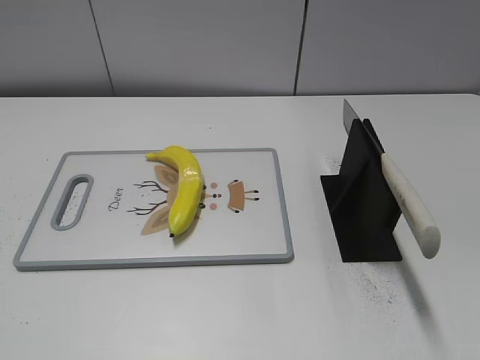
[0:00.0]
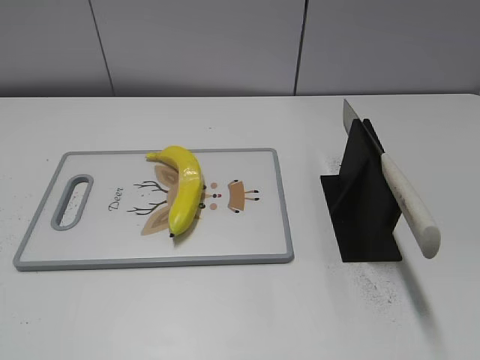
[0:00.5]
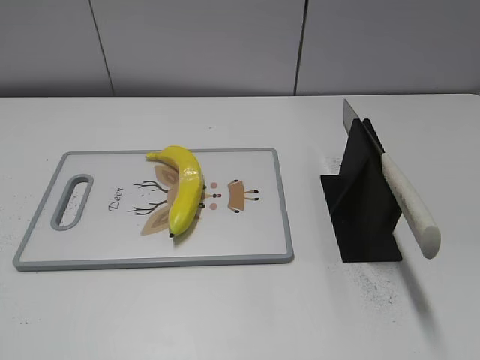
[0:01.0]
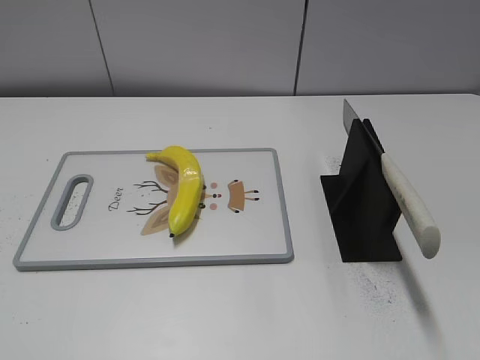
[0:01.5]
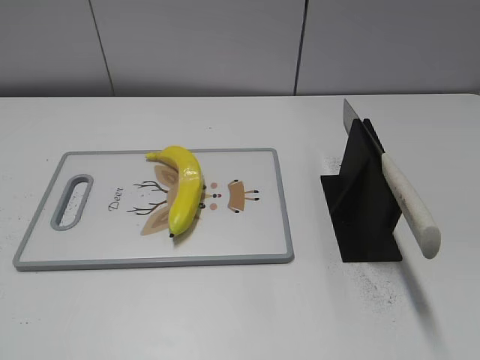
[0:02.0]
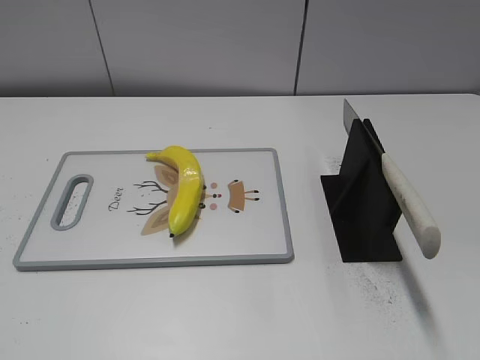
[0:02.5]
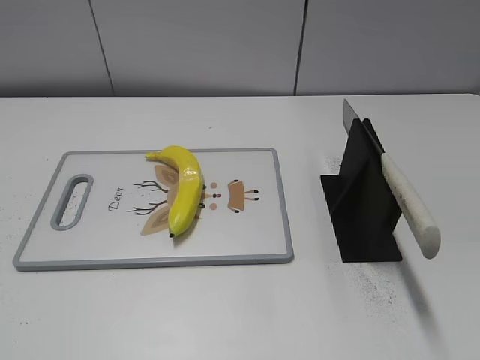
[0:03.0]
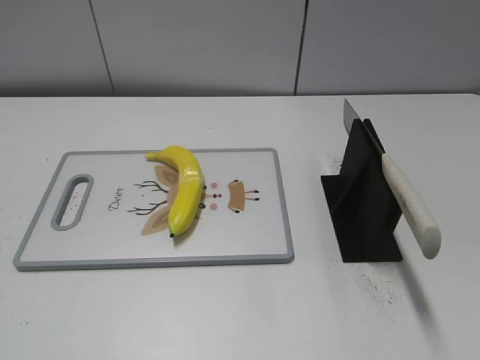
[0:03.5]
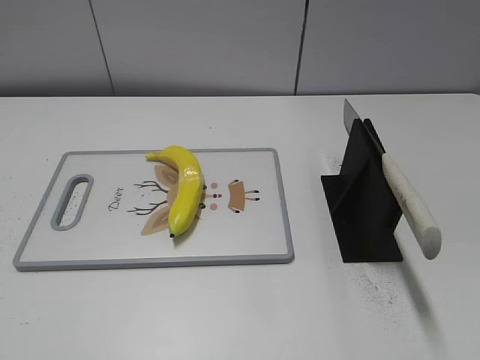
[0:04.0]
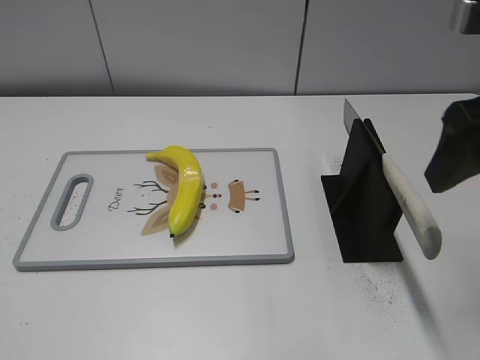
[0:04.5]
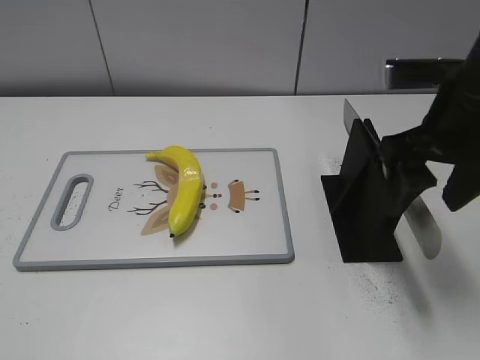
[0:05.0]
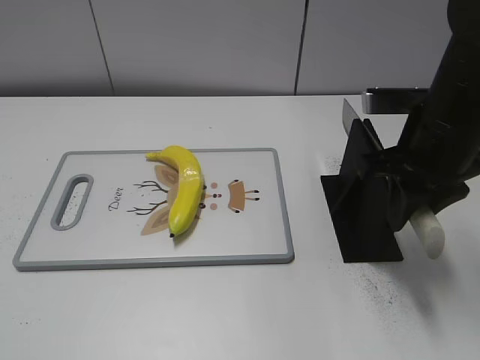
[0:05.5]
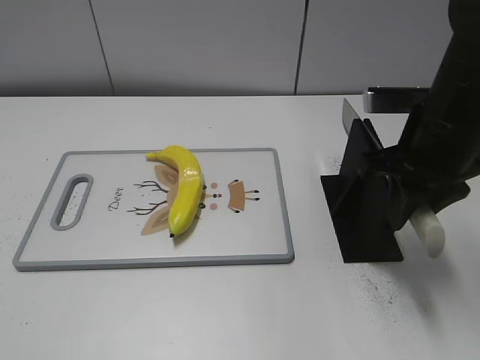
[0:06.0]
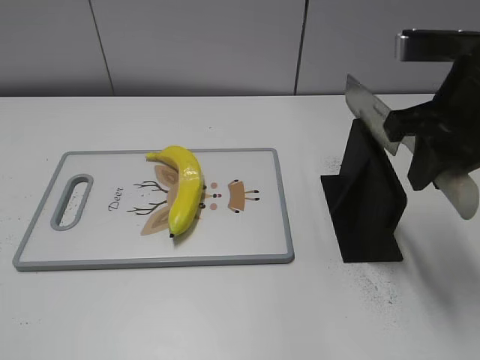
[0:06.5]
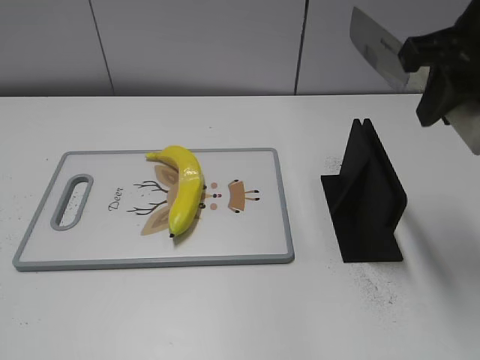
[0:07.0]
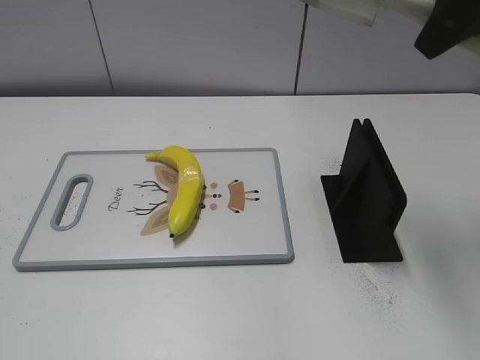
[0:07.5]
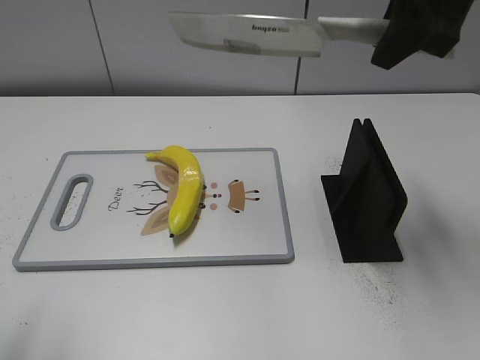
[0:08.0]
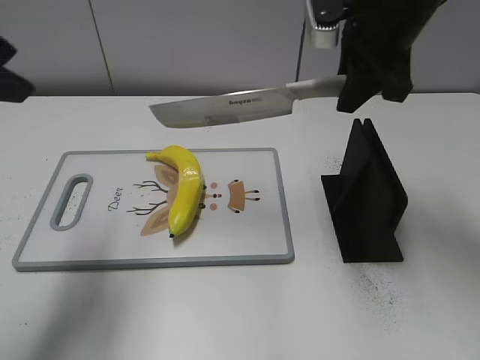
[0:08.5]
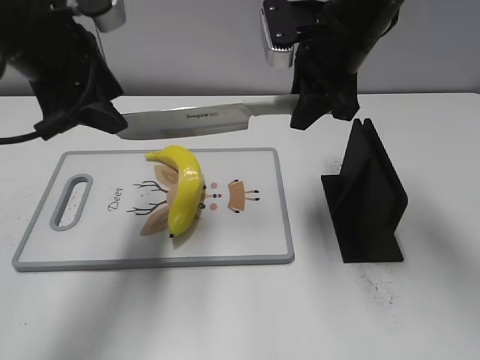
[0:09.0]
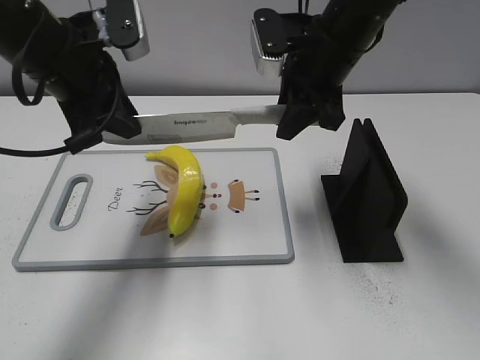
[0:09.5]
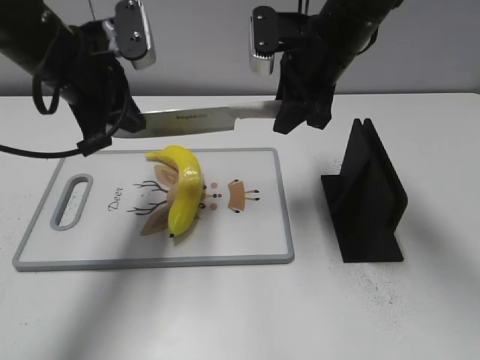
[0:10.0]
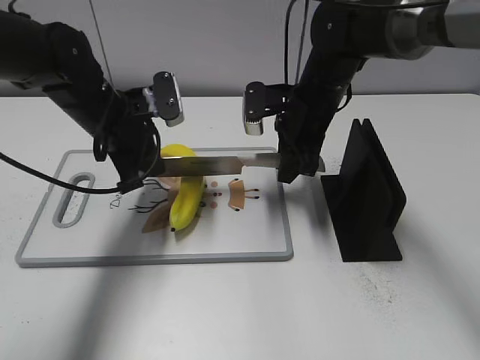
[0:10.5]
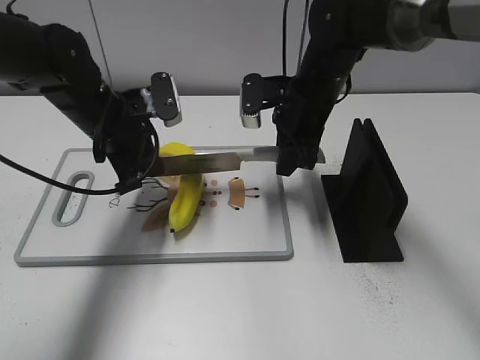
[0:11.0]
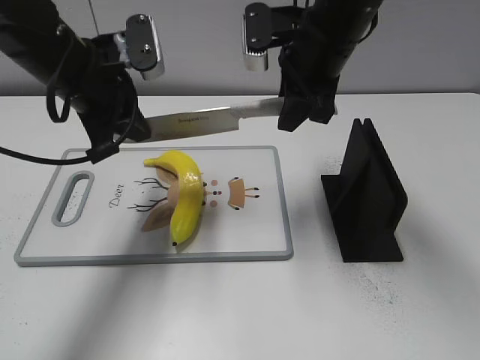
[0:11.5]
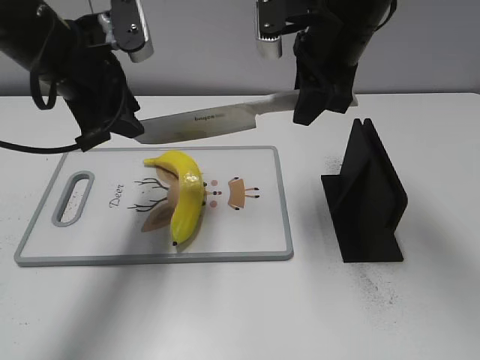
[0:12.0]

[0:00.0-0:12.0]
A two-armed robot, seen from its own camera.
Task of the whole recording: cut plastic banana.
Step, 0:00.0 to 0:07.0: Grab the knife handle with your right hand.
Step, 0:07.5 to 0:11.5: Lift the knife with your right hand.
0:04.0 to 0:06.0: The right gripper heads forward, downward and to the left, covering approximately 20 cm, and closes.
0:06.0 to 0:08.0: The left gripper goes about 10 cm forward and upward; the right gripper is displaced upward by some 15 cm.
0:08.0 to 0:10.0: The right gripper shifts approximately 15 cm downward, to the left and forward; the left gripper heads forward and to the right, covering approximately 25 cm, and closes its fingers.
0:10.0 to 0:12.0: The right gripper moves roughly 10 cm downward and comes back, while the left gripper moves some 10 cm downward and comes back, and opens up.

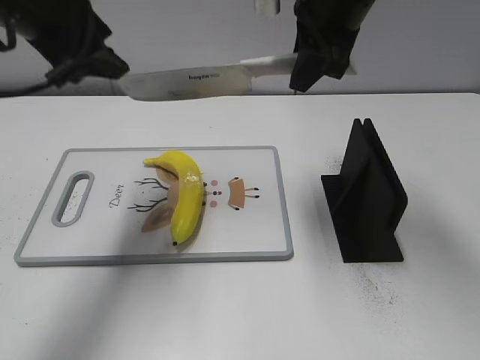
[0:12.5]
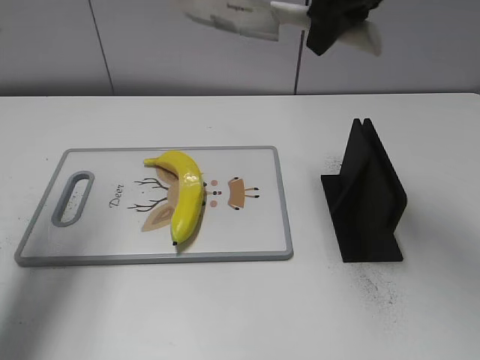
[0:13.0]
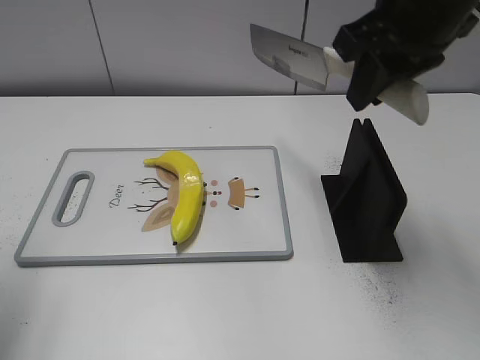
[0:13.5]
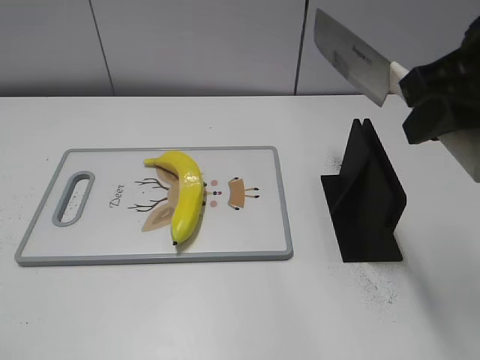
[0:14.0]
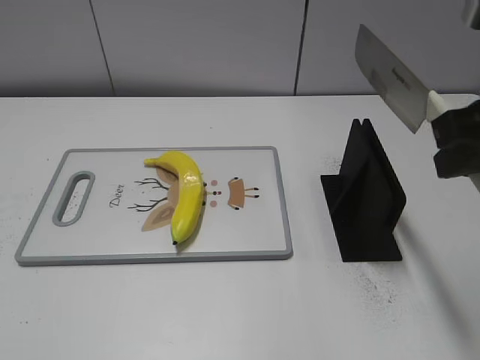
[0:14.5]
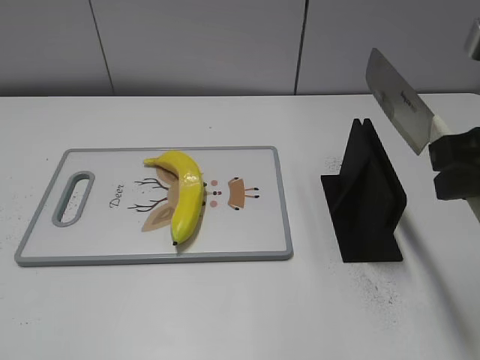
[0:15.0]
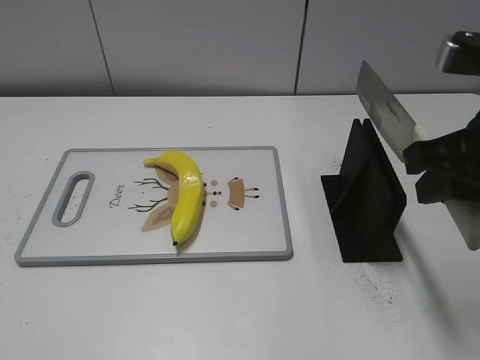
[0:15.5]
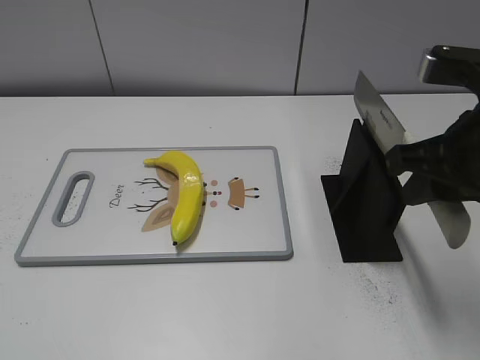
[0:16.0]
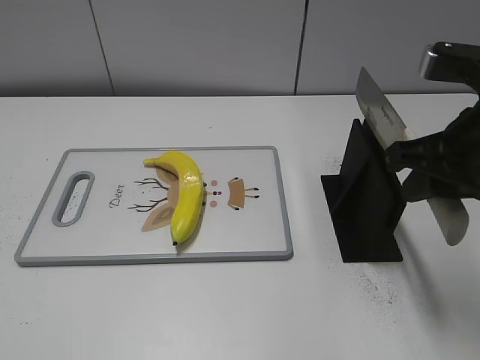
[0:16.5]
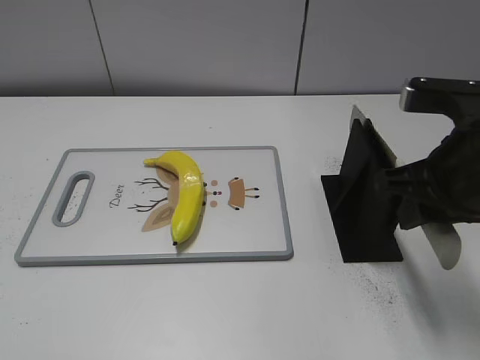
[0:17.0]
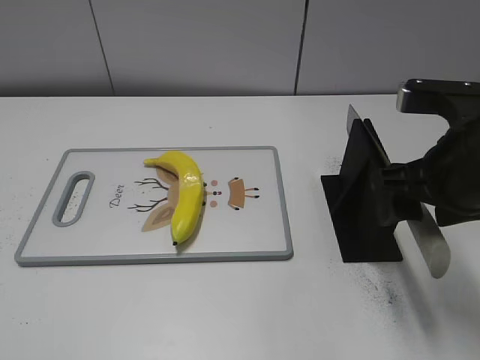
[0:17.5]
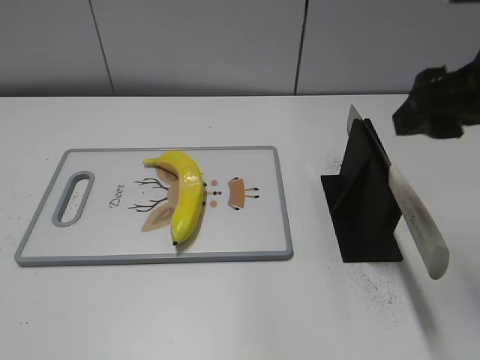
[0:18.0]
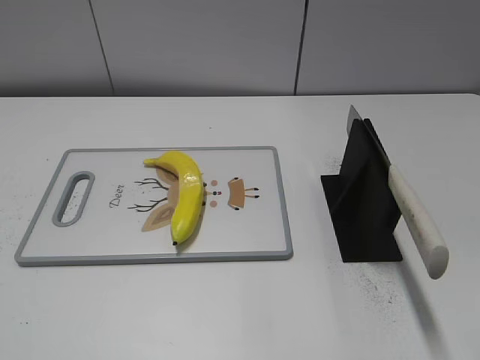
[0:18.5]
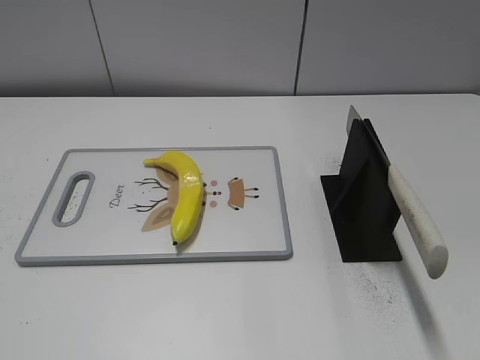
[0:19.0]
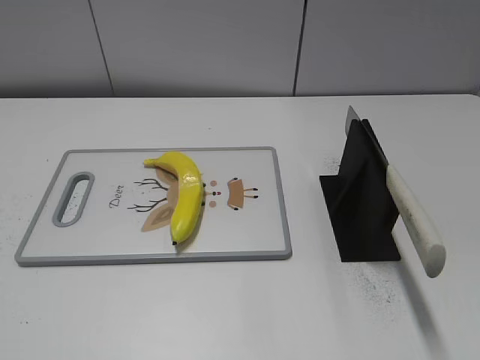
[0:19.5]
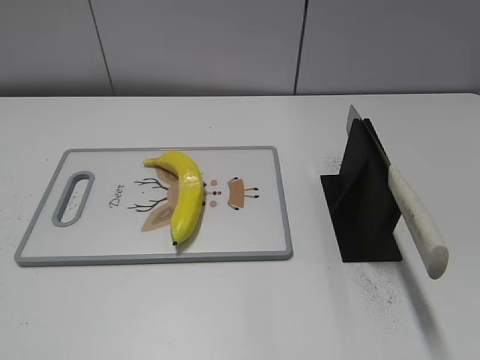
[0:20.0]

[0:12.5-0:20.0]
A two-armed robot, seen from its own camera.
Task of the whole recording: cut plastic banana.
Step, 0:12.5 to 0:13.5: Cut the banana with your right hand.
Step, 0:14.0 to 0:14.5: Lift the knife with your right hand.
Step, 0:15.0 to 0:20.0: Place the knife on the storage rack with your right hand.
0:12.5 to 0:14.5: The right gripper moves backward and to the right, roughly 20 cm. The left gripper moves backward, roughly 35 cm.
0:14.5 to 0:16.5: The right gripper is displaced downward by about 5 cm.
0:16.5 to 0:18.0: The right gripper goes some 5 cm upward, and opens.
0:18.0 to 0:20.0: The right gripper is displaced backward and to the right by approximately 25 cm.
